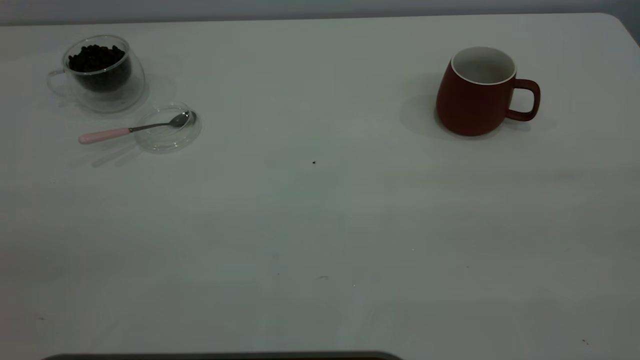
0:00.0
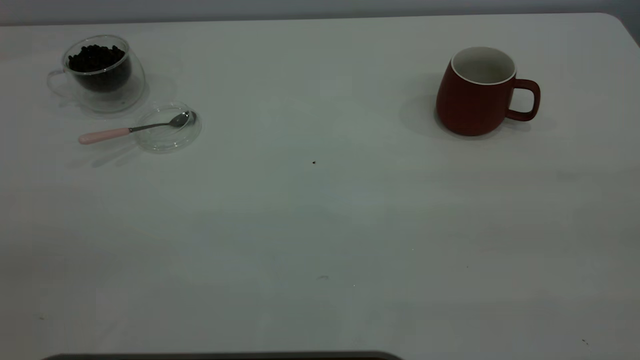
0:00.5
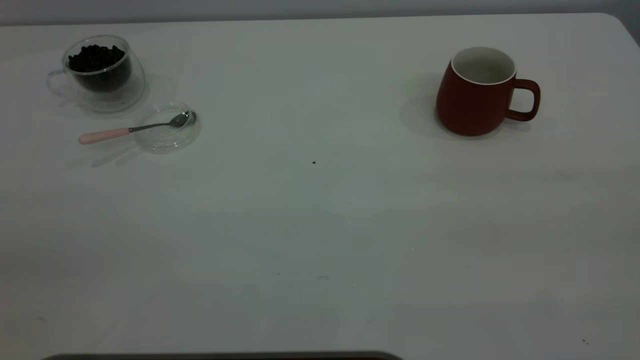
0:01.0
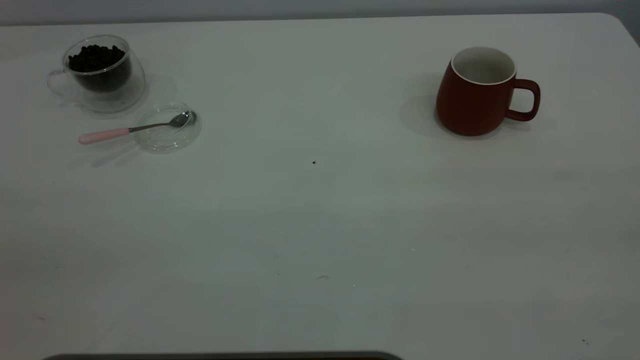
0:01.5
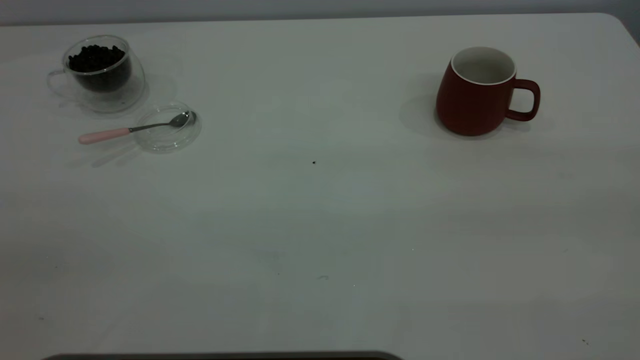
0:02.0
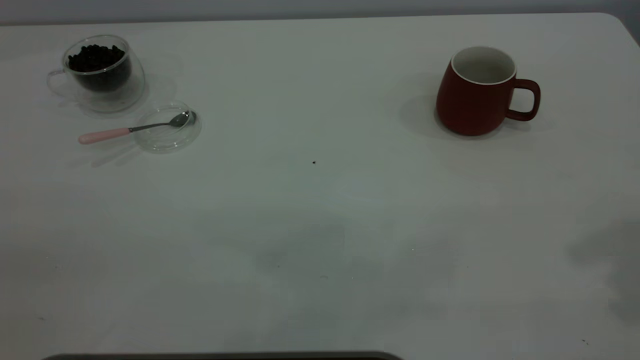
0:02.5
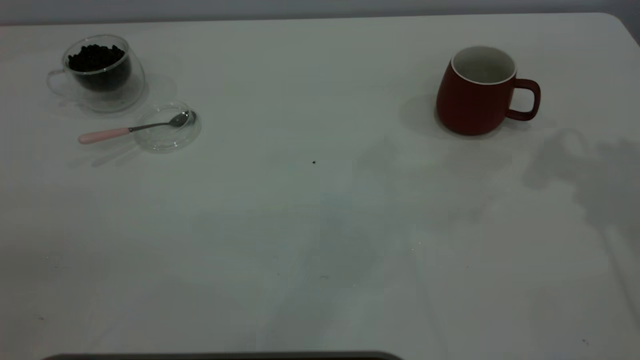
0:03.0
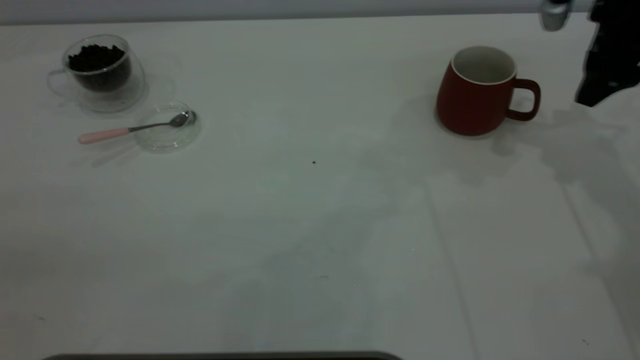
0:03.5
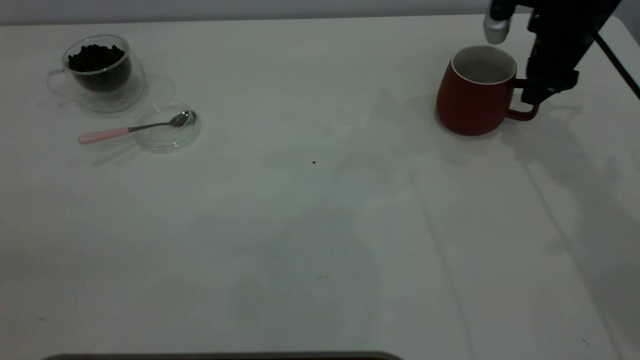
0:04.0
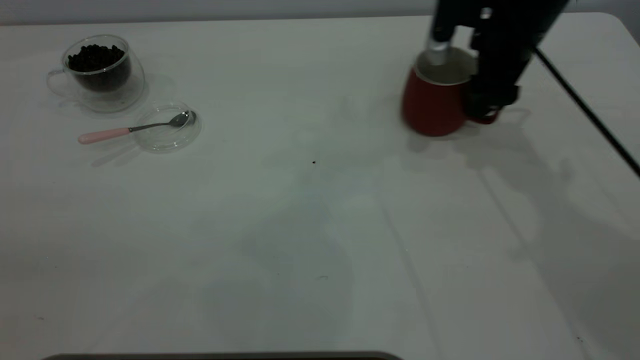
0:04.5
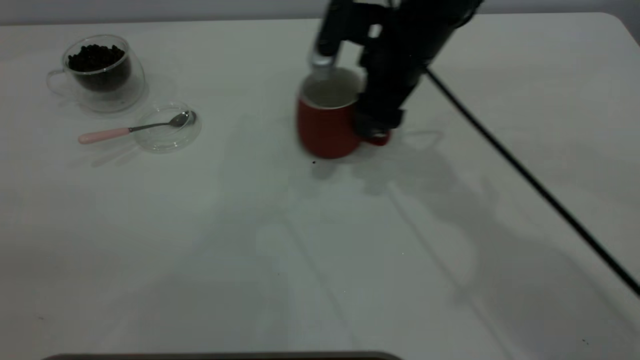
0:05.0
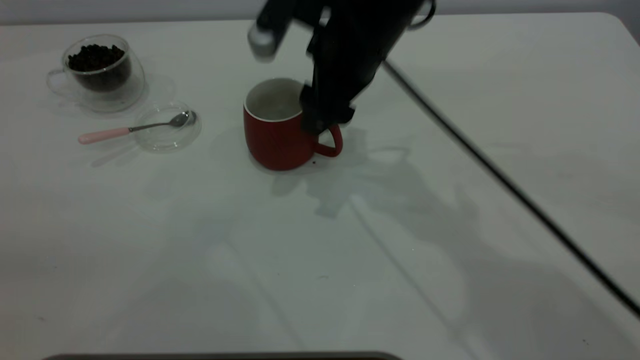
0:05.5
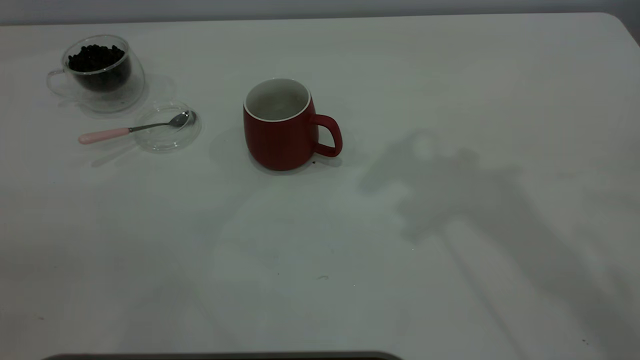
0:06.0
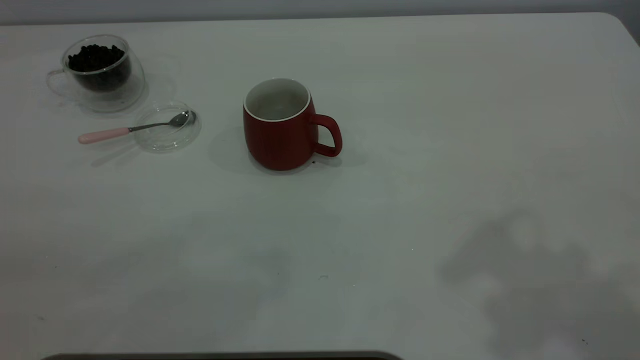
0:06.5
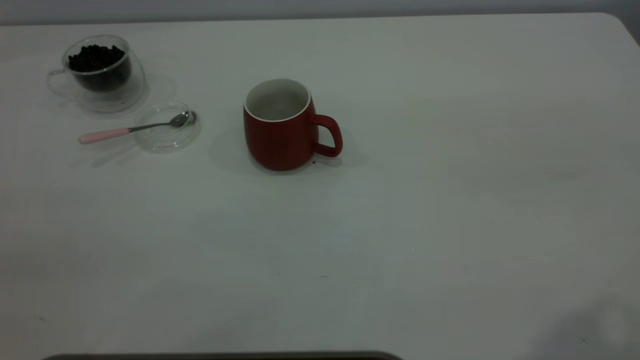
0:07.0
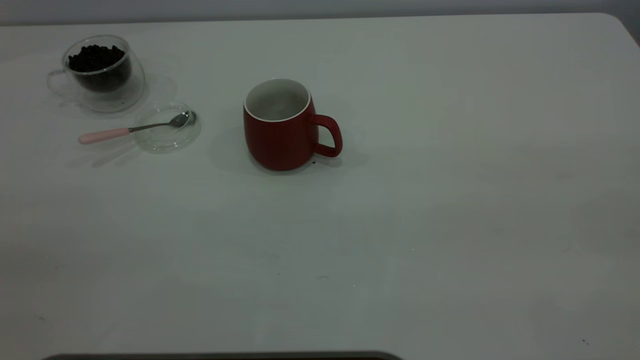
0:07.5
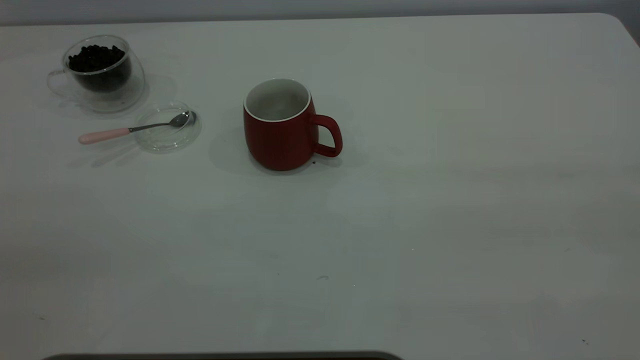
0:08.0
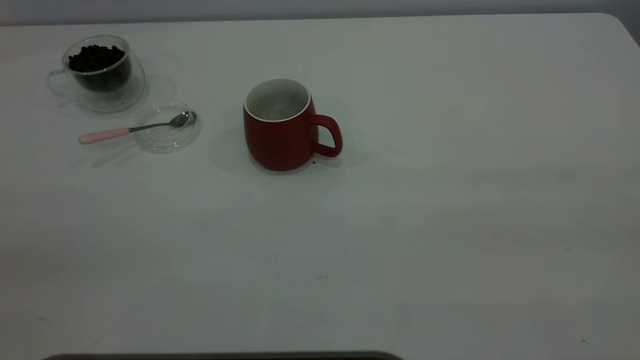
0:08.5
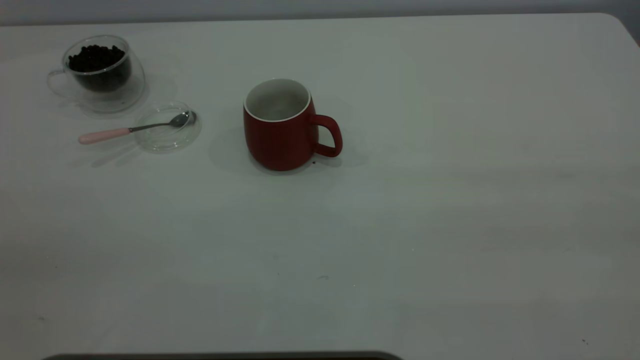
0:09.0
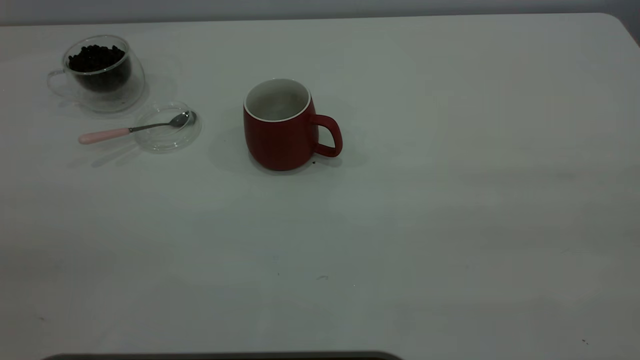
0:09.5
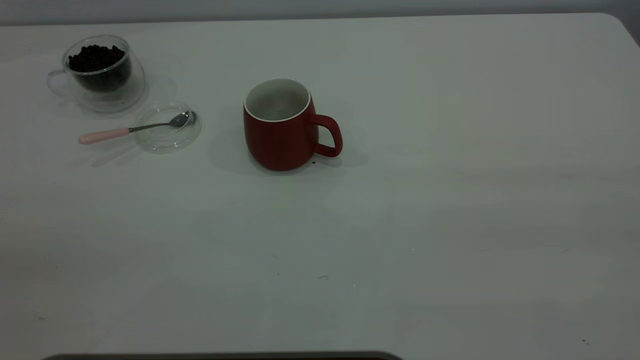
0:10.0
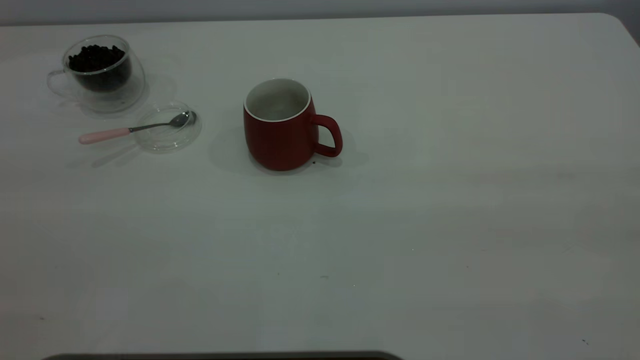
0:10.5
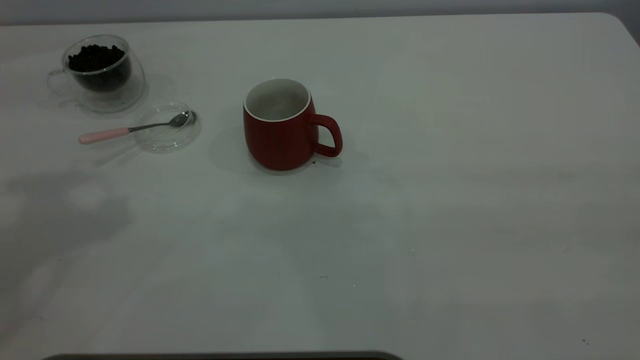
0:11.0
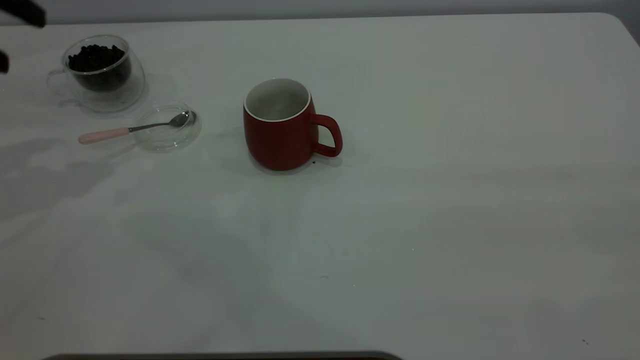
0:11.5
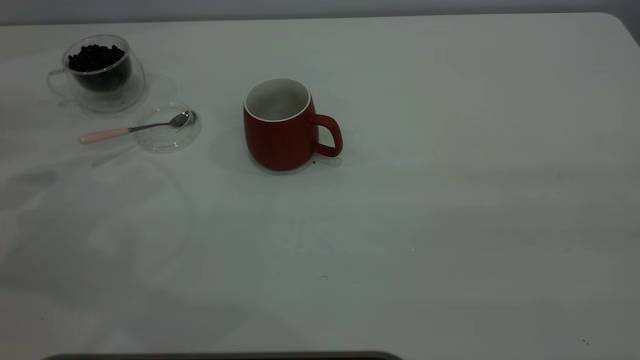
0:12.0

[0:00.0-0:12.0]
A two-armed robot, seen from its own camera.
Task of the whole recording: the right gripper place the red cup in the center of the table, the left gripper take the pink spoon from the cup lid and scoop out the coffee beans from the coffee cup and put them into the red cup, the left gripper put the spoon back into the cup lid.
Step, 0:00.0 to 0:05.5: Move the cup to the center of view.
0:02.0 to 0:04.0: The right gripper heads forward and downward, covering some 50 cm, and opens up.
0:04.0 to 0:06.0: The right gripper shifts about 30 cm upward, backward and to the left, and closes.
0:08.0 to 0:10.0: The two grippers keep their place.

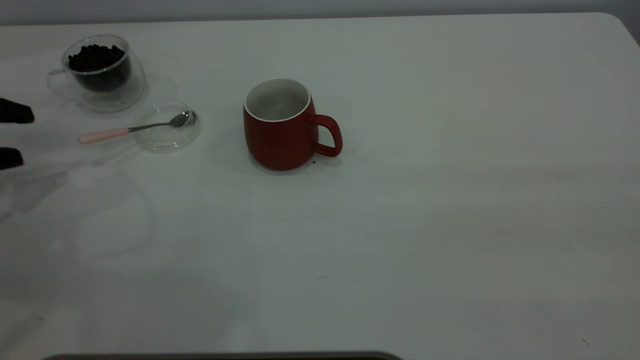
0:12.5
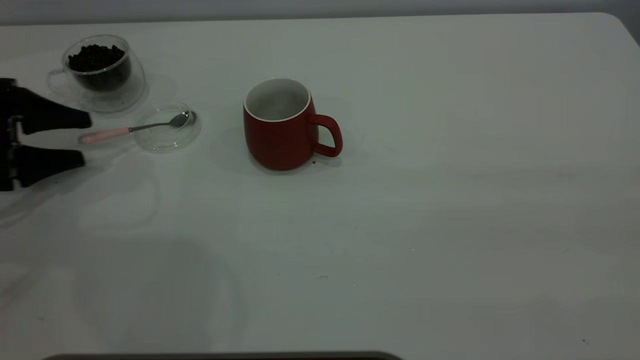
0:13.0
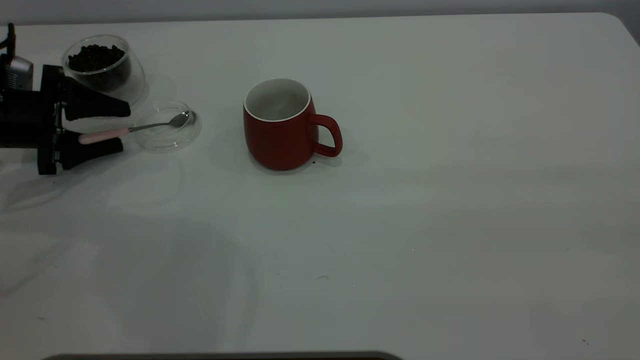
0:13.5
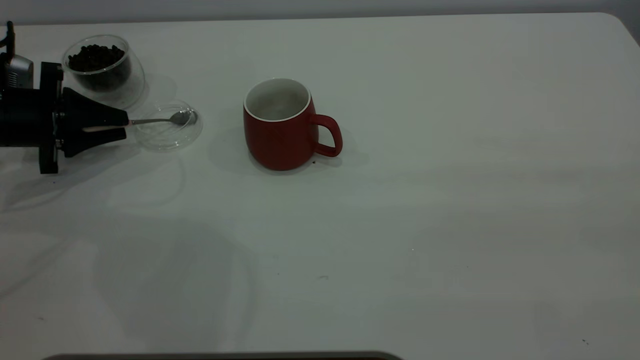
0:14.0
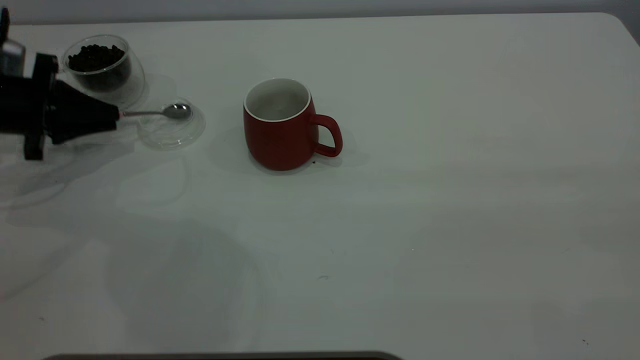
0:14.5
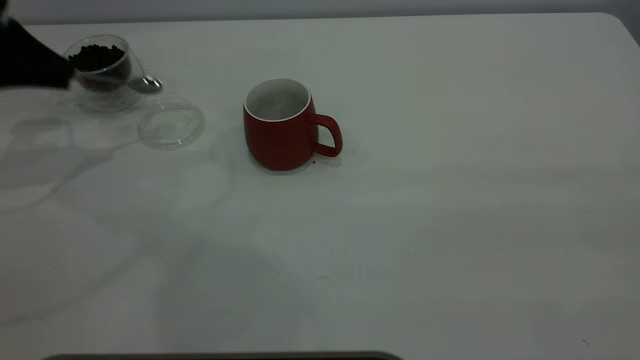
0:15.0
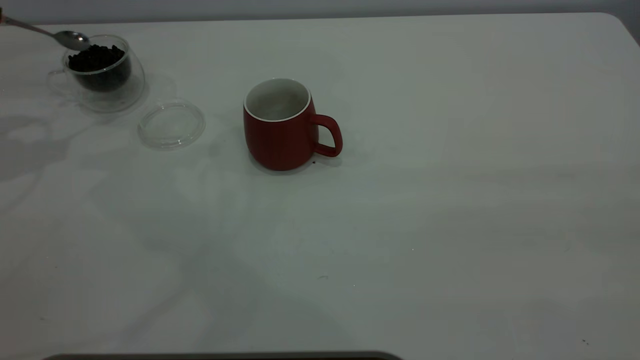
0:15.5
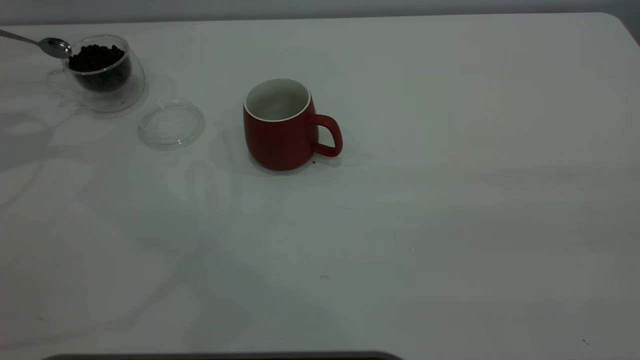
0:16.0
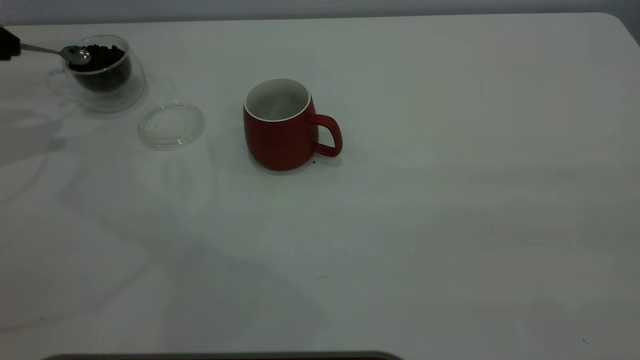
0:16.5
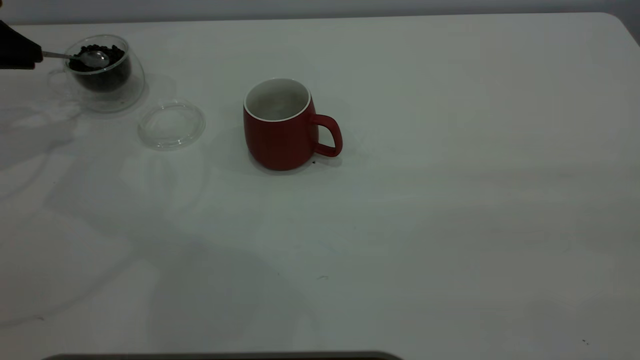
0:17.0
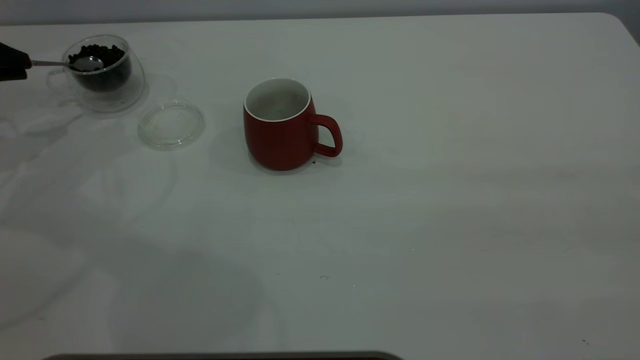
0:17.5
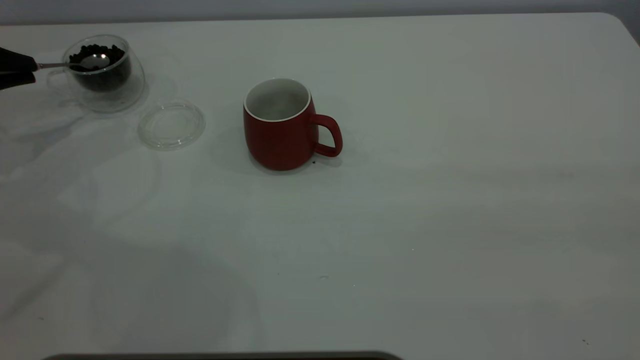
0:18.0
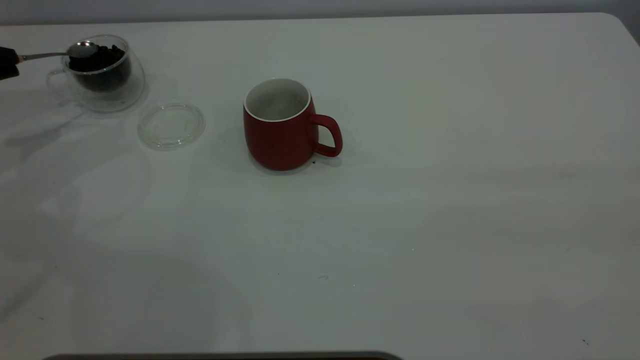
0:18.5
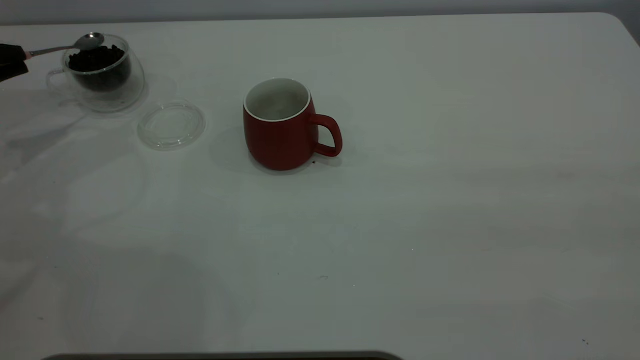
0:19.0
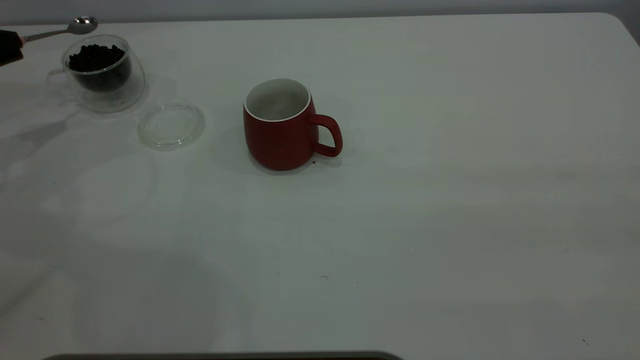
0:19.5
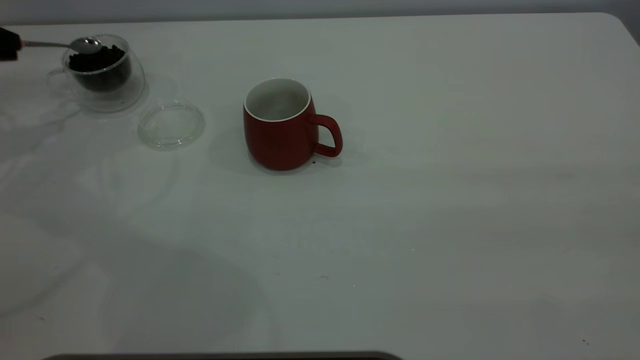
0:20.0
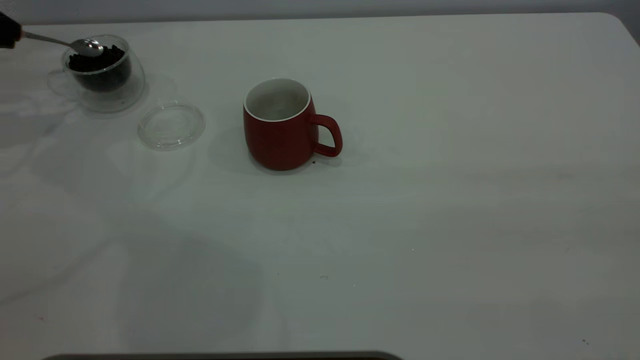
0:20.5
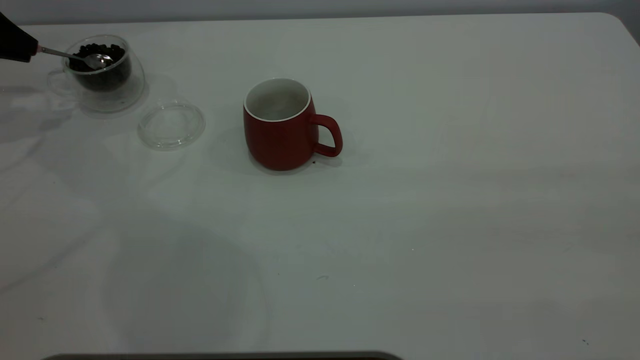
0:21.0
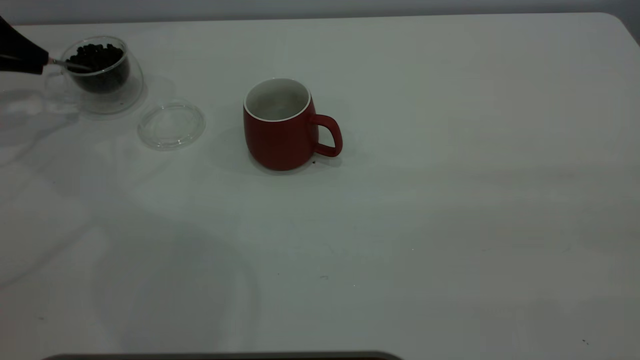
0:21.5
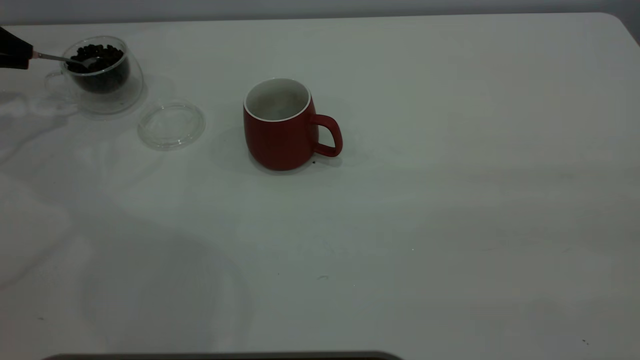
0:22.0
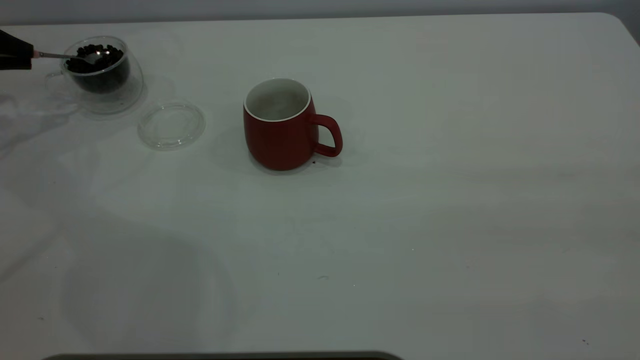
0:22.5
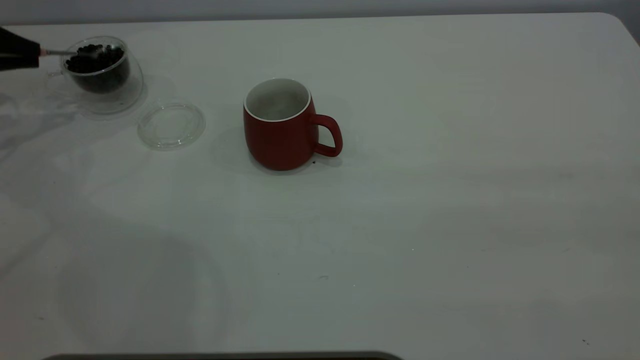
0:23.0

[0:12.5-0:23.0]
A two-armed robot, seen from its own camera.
Task of the whole recording: the right gripper place the red cup in the center of the table, the left gripper take the pink spoon from the cup lid and scoop out the coffee beans from the coffee cup and put them into the red cup, the left gripper put the spoon back into the cup lid.
Step, 0:12.5 to 0:15.0: Pick up the spoon.
0:12.5 to 0:14.5: The left gripper goes roughly 10 cm forward and to the right, and closes its fingers.
0:14.5 to 0:16.5: The left gripper travels upward by roughly 10 cm.
0:16.5 to 0:19.0: The left gripper shifts some 5 cm downward.
0:19.0 to 0:21.0: The left gripper is displaced forward and upward by about 10 cm.
